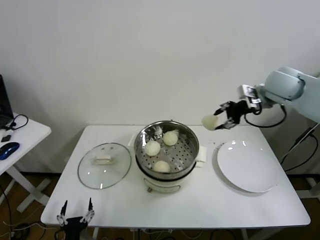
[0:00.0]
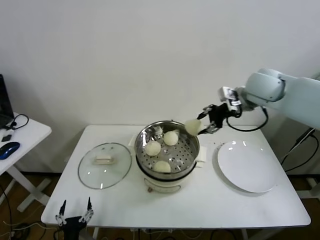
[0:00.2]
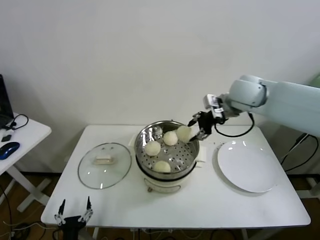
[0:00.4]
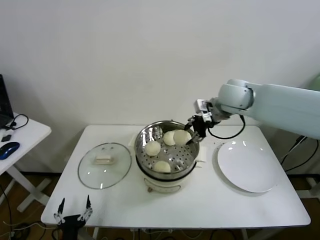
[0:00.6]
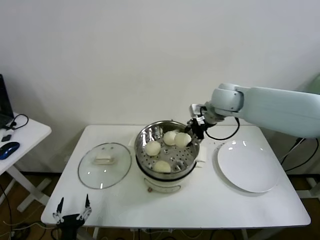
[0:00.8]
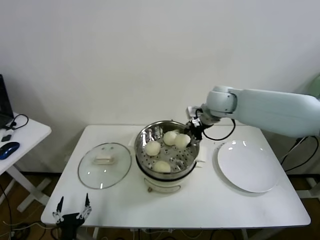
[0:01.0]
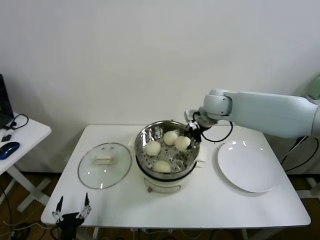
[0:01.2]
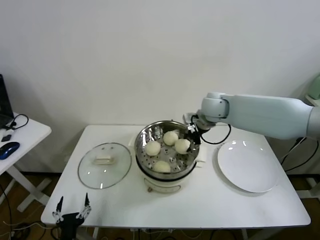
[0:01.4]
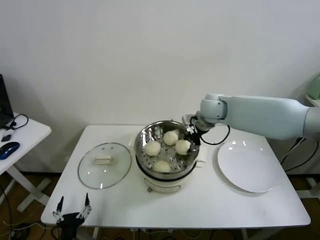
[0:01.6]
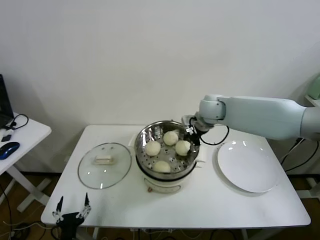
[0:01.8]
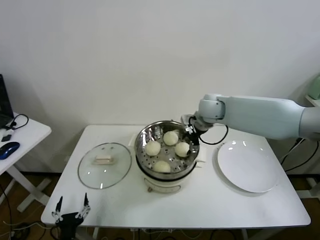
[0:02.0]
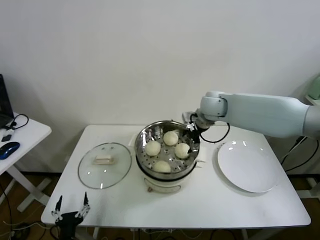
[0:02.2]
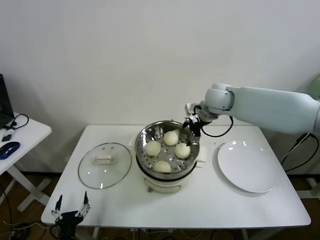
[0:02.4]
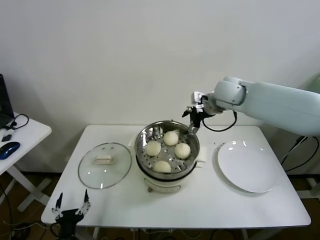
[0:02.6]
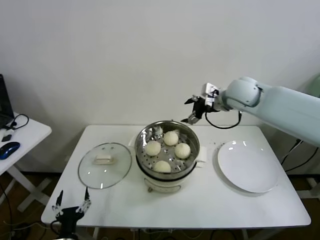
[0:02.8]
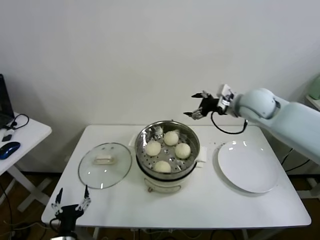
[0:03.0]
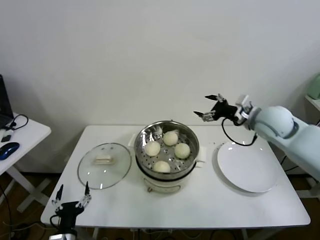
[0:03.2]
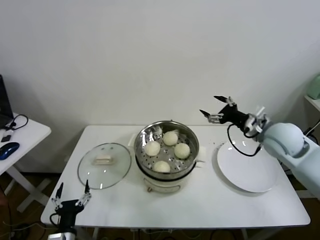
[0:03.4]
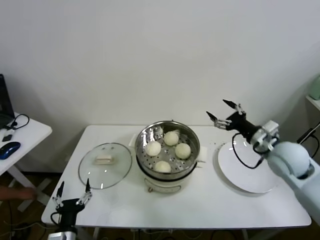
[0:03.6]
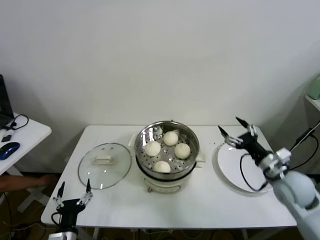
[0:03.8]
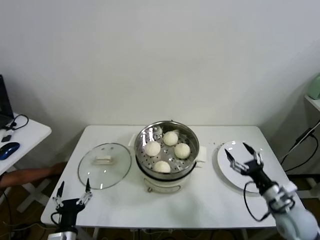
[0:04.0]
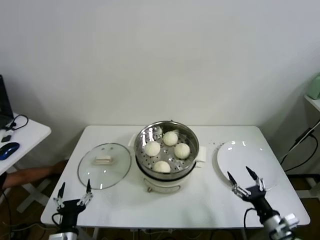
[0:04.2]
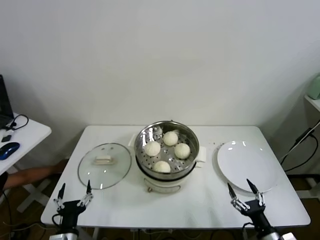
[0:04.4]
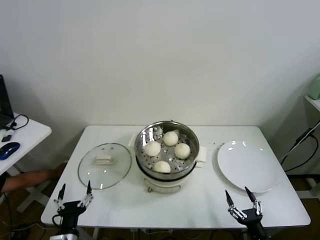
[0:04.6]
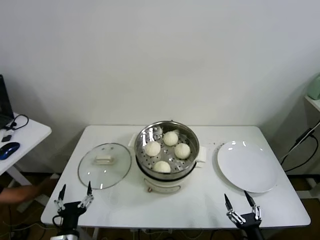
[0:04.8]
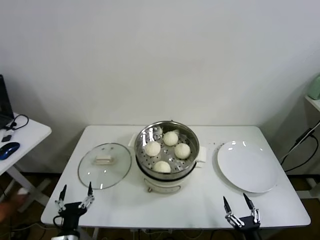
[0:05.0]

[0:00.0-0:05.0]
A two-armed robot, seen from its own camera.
Task of the whole recording: take steamed baozi put them in steamer.
Step, 0:00.0 to 0:02.0: Place the baozi on the steamer with right gripper.
0:00.0 to 0:01.6: The right gripper shifts some 20 cm to the left and downward.
0:01.6 to 0:03.4: The right gripper moves to the right and backward, roughly 20 cm, and opens.
0:03.4 to 0:05.0: The right gripper is displaced backward and downward by about 40 cm.

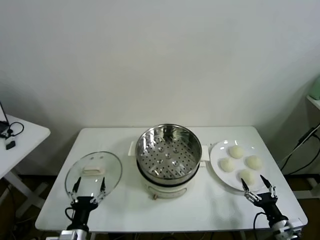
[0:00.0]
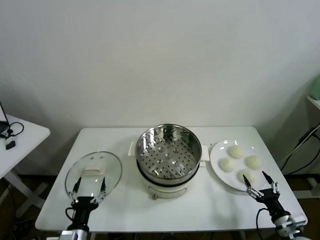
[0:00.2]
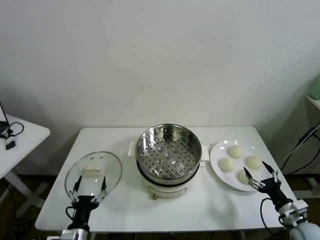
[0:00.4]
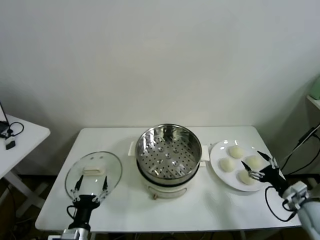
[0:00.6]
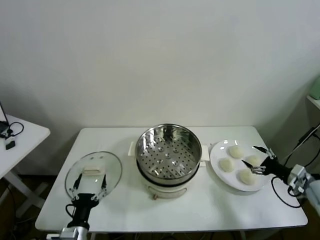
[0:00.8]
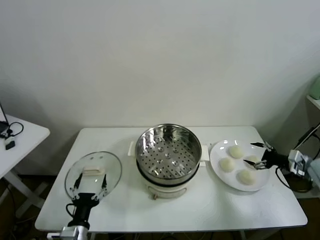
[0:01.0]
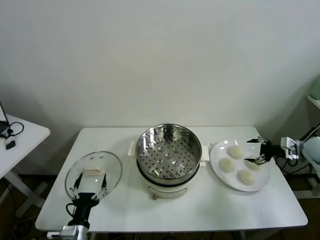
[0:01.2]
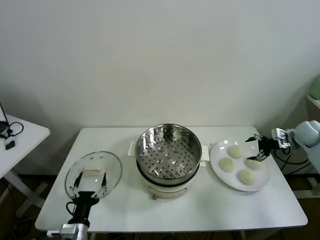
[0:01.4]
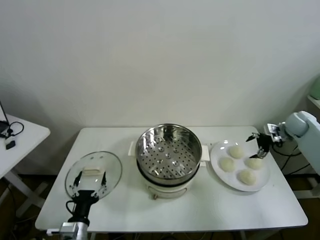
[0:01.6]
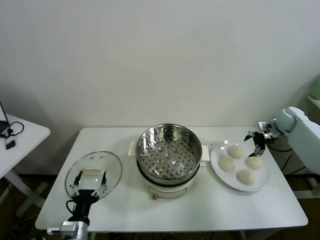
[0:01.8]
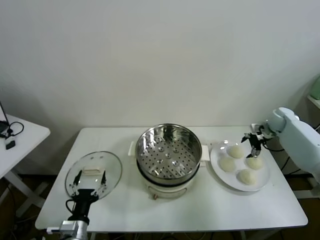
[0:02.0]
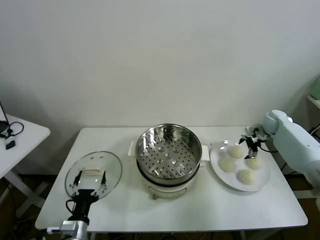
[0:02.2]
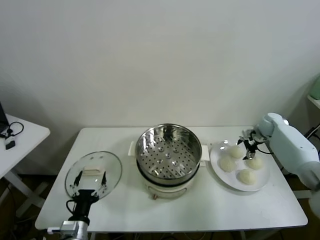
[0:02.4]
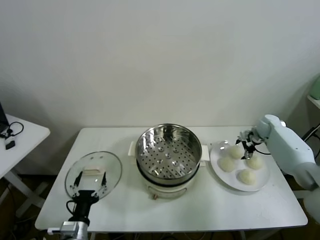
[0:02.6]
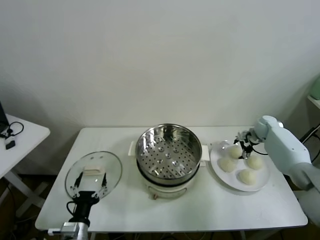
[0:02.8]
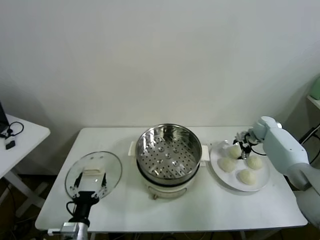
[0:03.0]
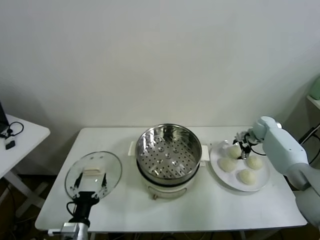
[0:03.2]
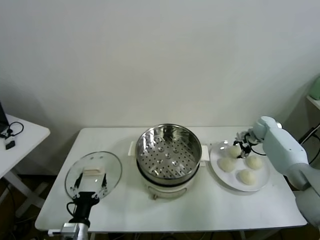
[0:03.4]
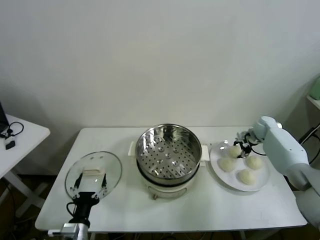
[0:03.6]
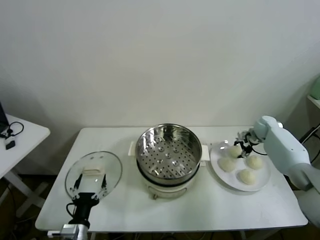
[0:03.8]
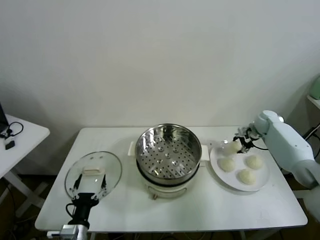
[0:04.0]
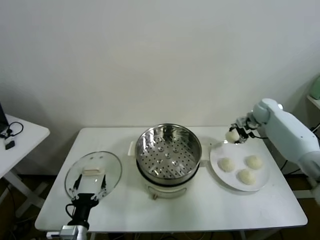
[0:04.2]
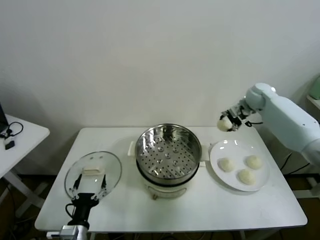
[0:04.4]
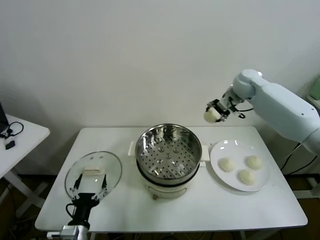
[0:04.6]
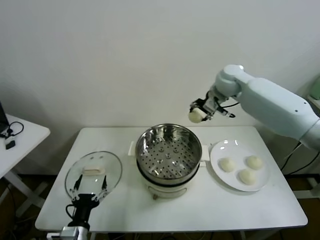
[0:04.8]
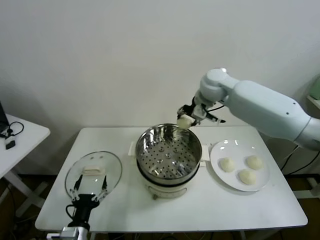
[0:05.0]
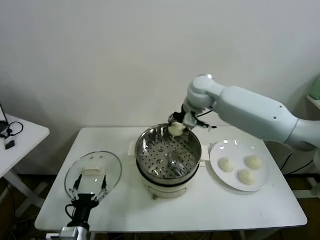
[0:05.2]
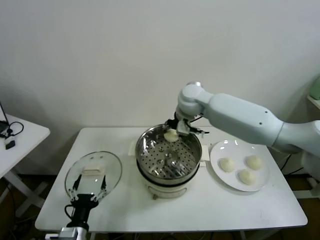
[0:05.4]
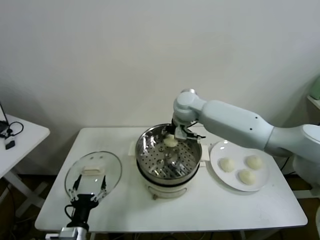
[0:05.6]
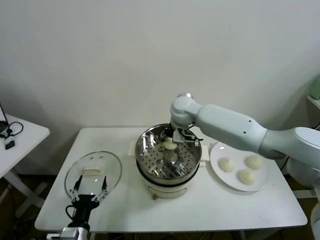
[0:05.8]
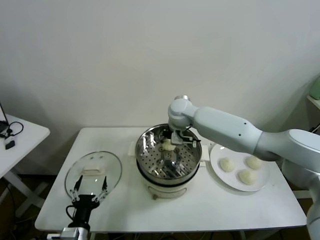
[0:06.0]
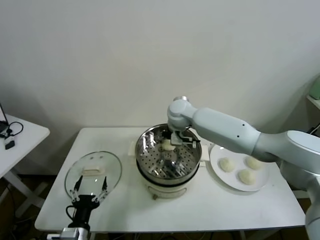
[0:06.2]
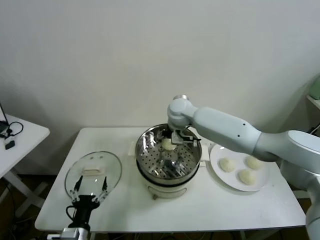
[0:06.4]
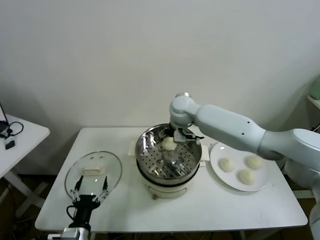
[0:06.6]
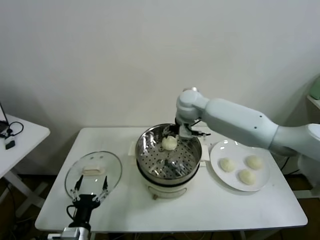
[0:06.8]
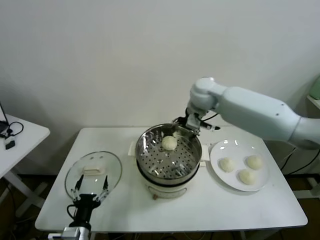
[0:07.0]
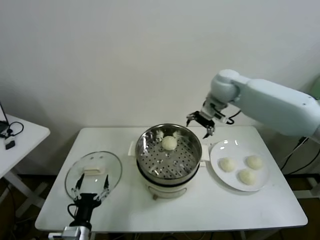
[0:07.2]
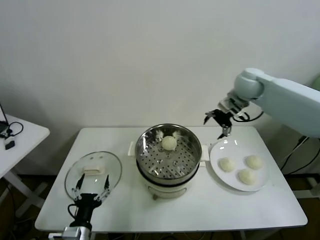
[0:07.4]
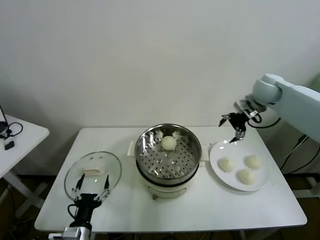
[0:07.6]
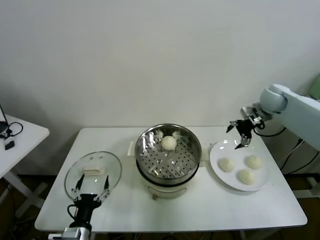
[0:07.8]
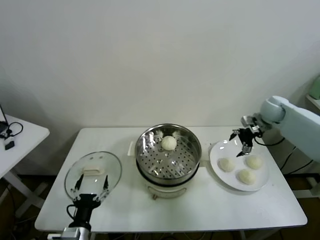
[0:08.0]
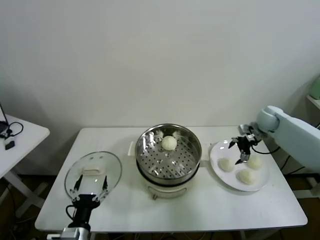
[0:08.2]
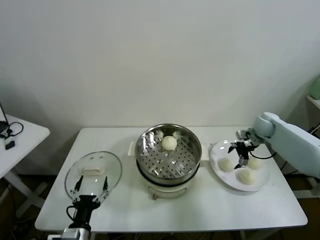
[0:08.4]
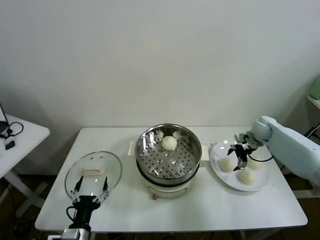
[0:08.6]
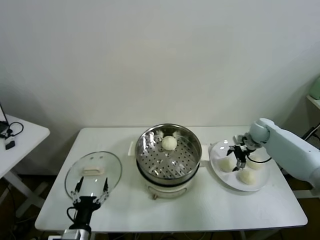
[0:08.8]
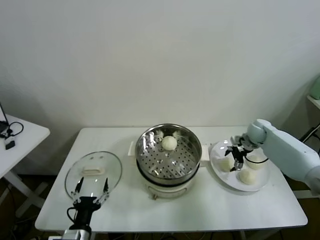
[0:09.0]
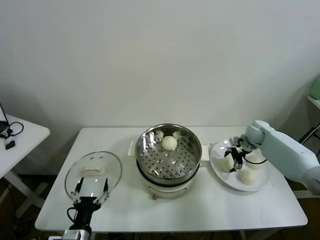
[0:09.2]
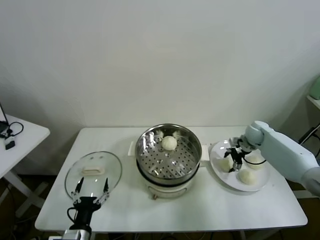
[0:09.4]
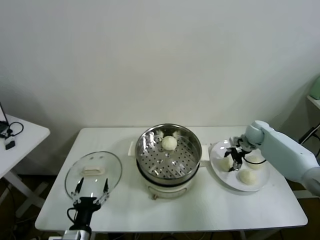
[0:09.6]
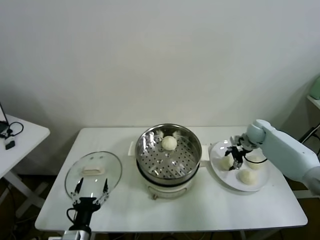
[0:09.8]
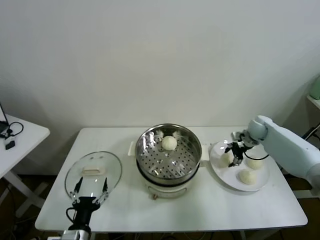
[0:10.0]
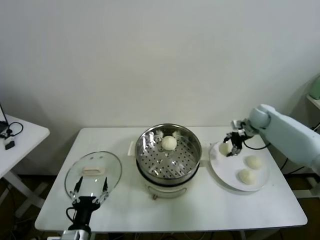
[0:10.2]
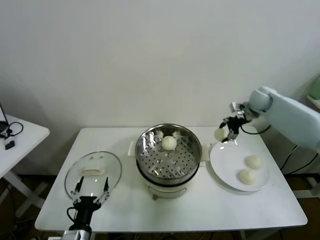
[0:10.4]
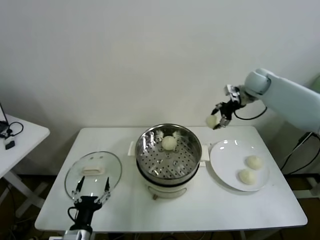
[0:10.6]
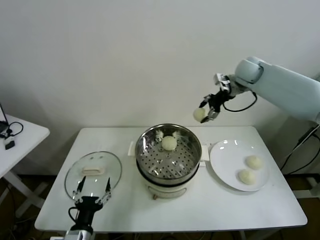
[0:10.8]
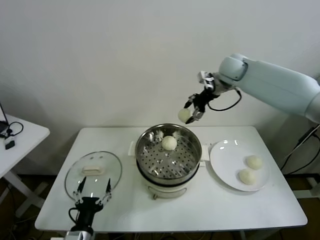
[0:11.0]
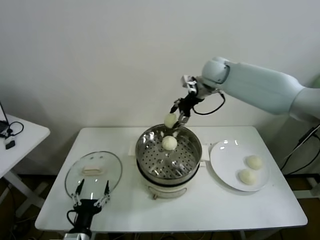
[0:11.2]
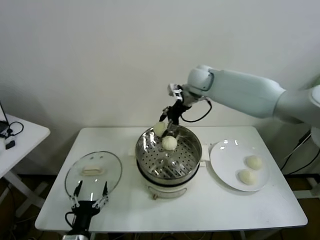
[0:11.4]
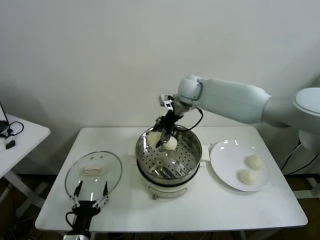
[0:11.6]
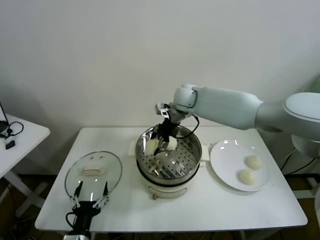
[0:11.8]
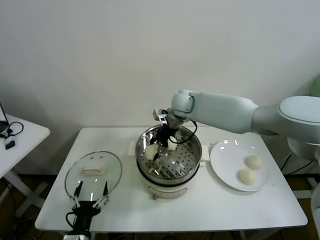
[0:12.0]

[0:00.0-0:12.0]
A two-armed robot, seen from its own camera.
Task of the whole recording: take steamed baozi put them in steamer.
Step, 0:00.0 to 0:03.4: Grasp the baozi in the plate with right gripper.
Step, 0:03.6 to 0:06.6: Place the baozi on the steamer with right gripper.
Step, 0:06.8 to 0:09.4: Grasp the baozi in the plate with right gripper.
0:01.6 to 0:03.0: The right gripper moves downward and to the left, about 10 cm.
0:03.0 to 0:04.4: The right gripper travels upward and to the left by roughly 20 cm, and closes its fingers.
0:04.4 to 0:06.0: The right gripper goes some 30 cm to the left.
0:06.0 to 0:07.6: The right gripper goes approximately 30 cm to the right, and opens.
0:07.6 to 0:09.0: The right gripper goes some 20 cm downward.
0:09.0 to 0:10.4: The right gripper goes roughly 15 cm upward, and closes its fingers.
0:10.4 to 0:12.0: The right gripper travels to the left by approximately 30 cm.

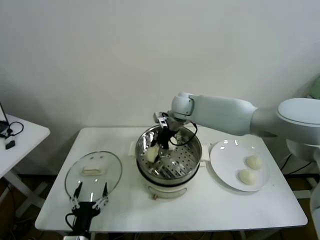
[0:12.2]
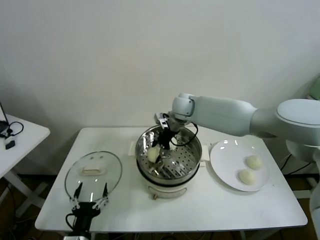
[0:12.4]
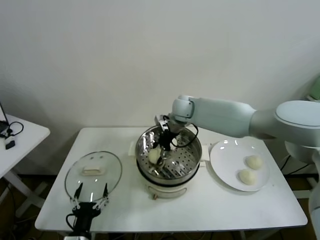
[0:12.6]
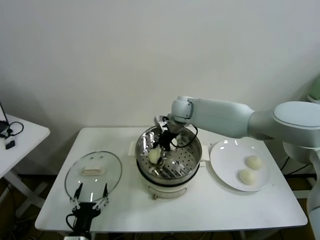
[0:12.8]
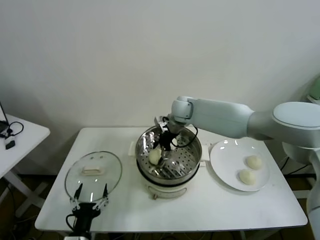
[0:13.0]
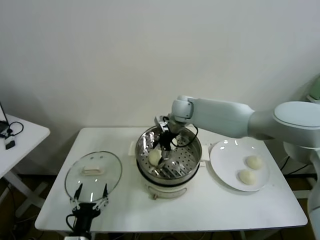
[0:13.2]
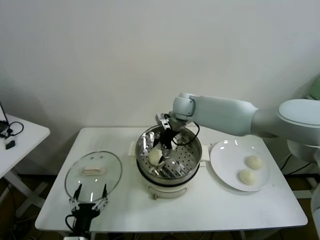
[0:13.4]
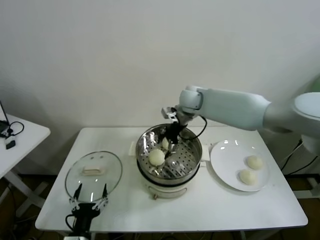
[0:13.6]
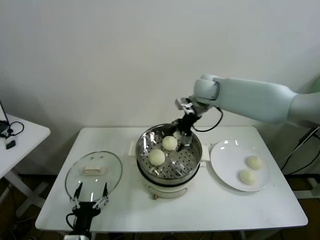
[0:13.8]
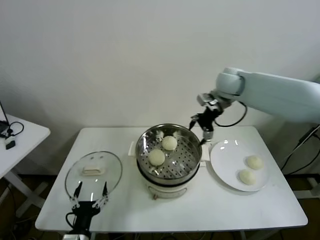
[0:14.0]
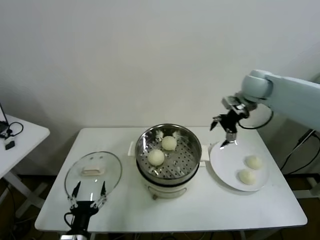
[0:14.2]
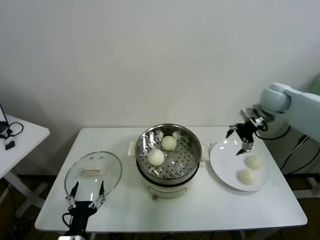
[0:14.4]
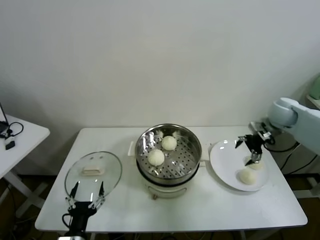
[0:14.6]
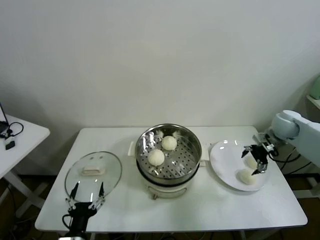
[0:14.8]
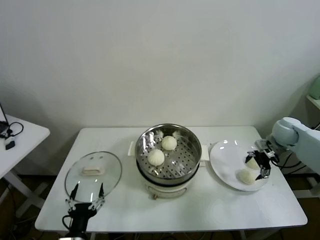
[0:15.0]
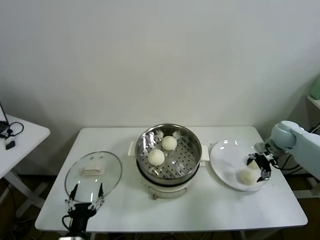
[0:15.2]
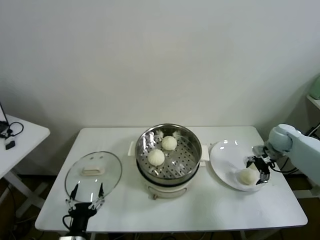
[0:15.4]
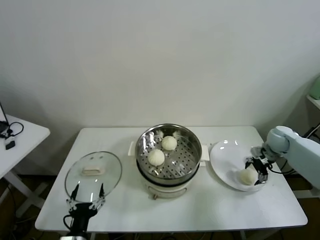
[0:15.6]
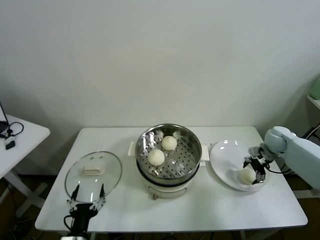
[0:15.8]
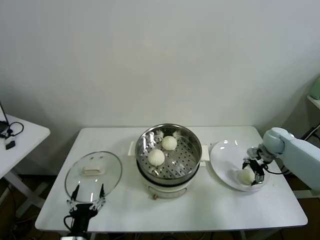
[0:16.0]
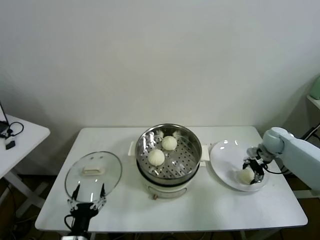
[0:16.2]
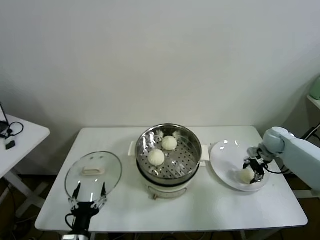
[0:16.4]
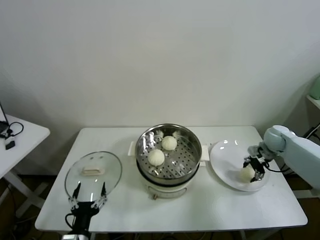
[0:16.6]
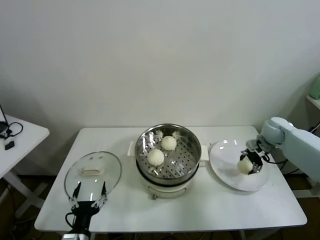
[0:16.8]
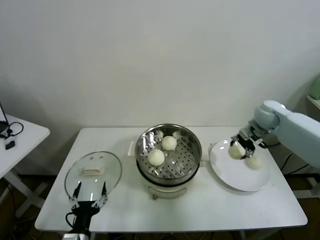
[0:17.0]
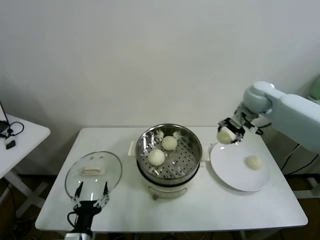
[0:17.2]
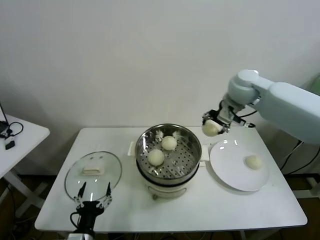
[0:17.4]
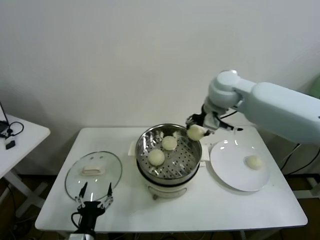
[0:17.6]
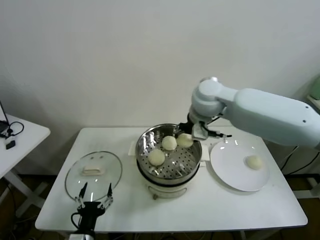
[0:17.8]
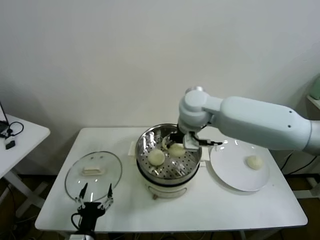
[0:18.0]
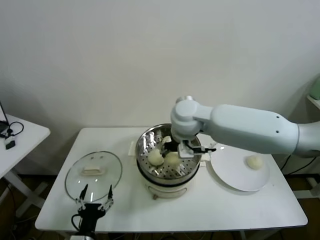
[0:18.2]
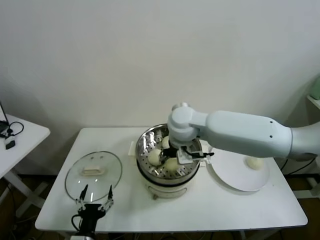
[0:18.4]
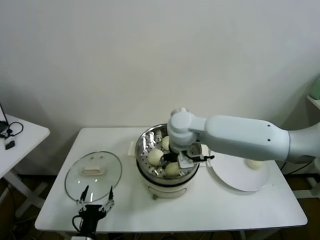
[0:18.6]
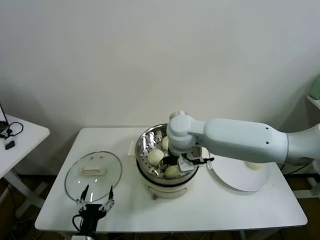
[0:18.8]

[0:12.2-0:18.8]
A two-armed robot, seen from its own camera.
Task of the whole recording: take steamed baozi put them in steamer.
Step, 0:13.6 to 0:16.2: Grasp the baozi in the plate with right gripper.
0:12.2 to 0:13.8: The right gripper heads to the right and upward, covering approximately 10 cm, and opens.
0:13.8 to 0:15.4: The right gripper travels to the right and downward by roughly 35 cm.
0:15.4 to 0:17.2: The right gripper shifts about 20 cm upward and to the left, and closes up.
0:17.2 to 0:18.8: The right gripper moves to the left and backward, approximately 30 cm.
